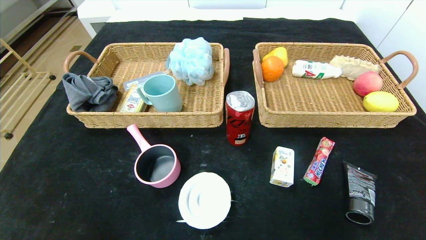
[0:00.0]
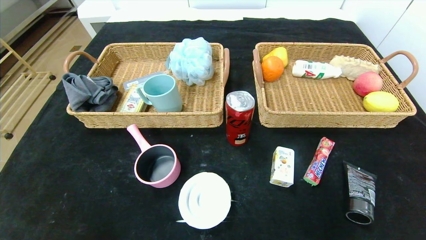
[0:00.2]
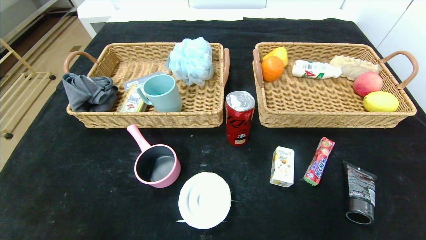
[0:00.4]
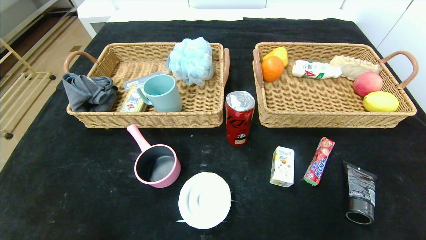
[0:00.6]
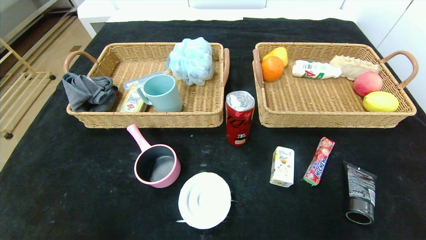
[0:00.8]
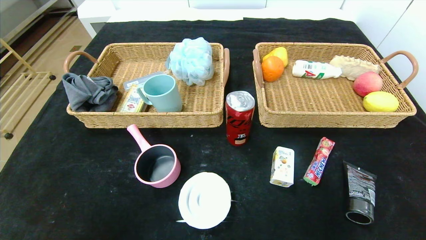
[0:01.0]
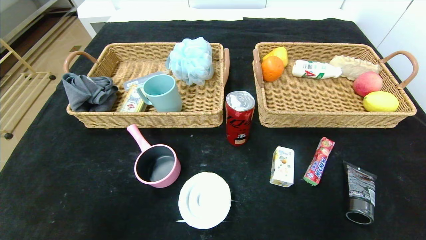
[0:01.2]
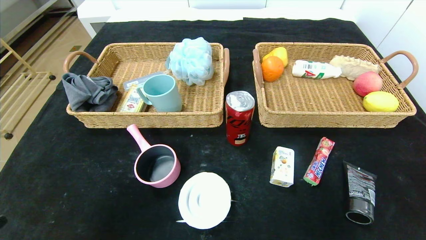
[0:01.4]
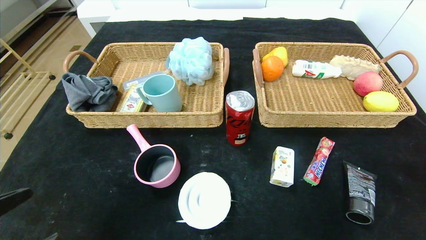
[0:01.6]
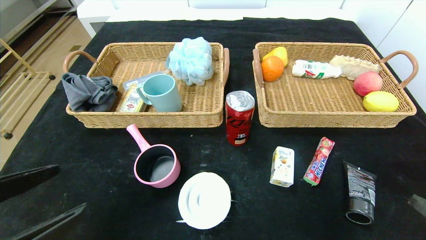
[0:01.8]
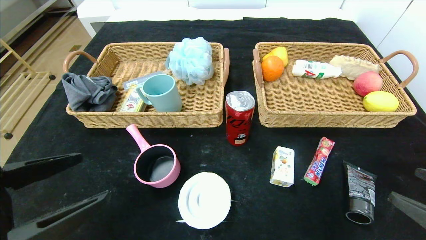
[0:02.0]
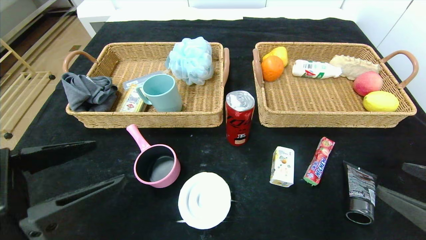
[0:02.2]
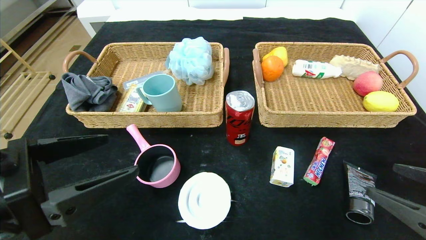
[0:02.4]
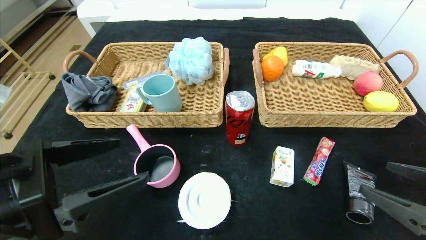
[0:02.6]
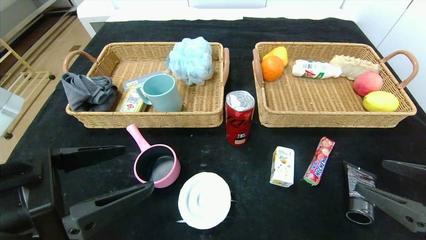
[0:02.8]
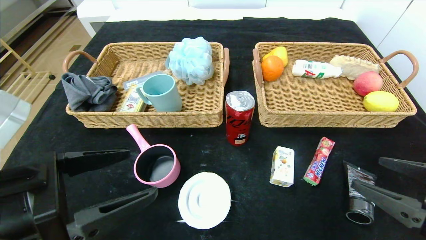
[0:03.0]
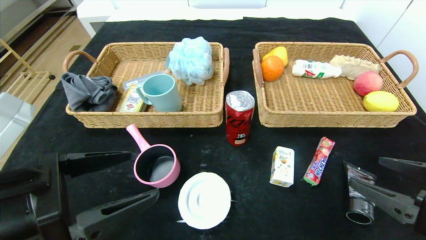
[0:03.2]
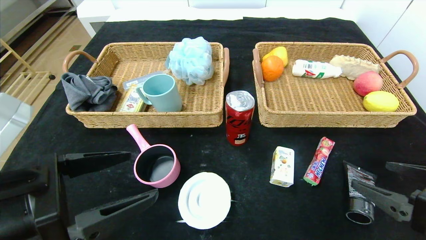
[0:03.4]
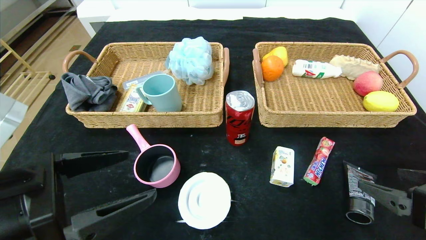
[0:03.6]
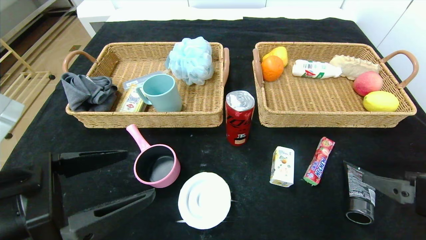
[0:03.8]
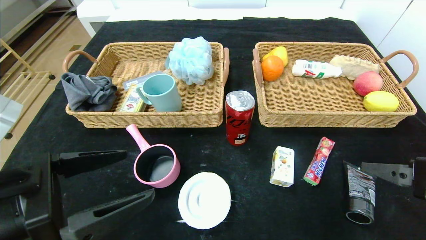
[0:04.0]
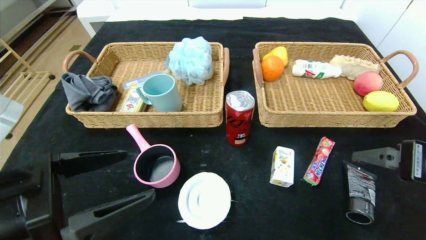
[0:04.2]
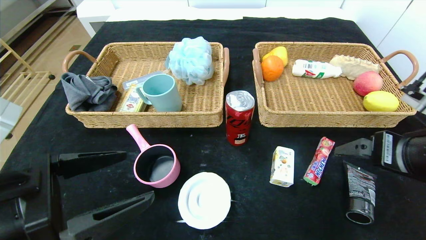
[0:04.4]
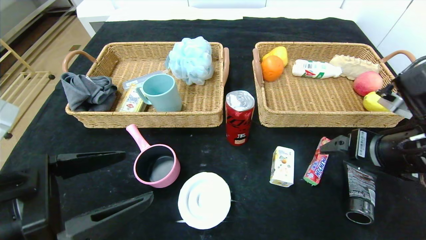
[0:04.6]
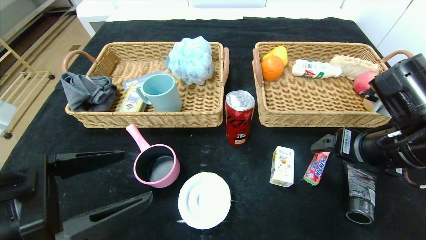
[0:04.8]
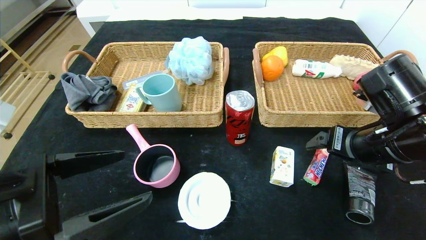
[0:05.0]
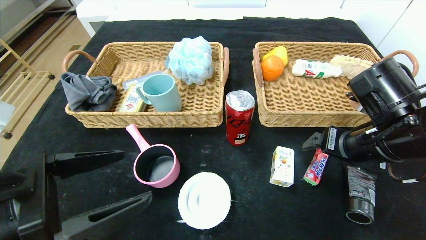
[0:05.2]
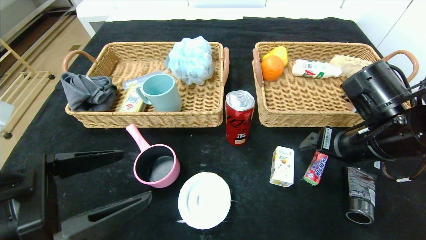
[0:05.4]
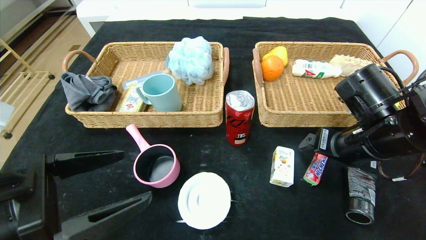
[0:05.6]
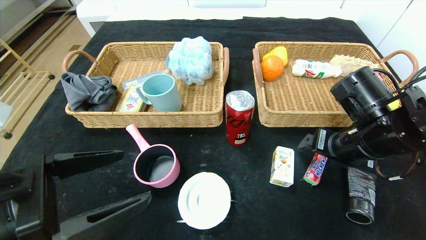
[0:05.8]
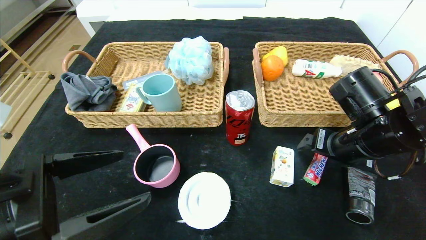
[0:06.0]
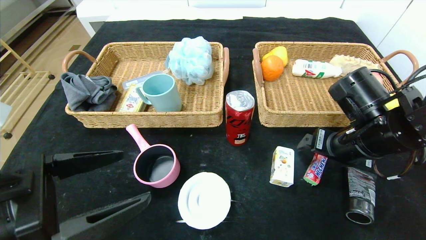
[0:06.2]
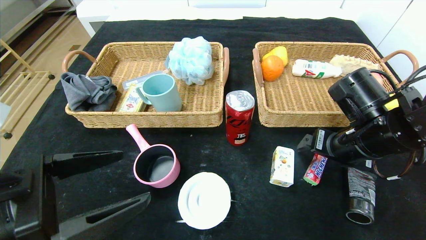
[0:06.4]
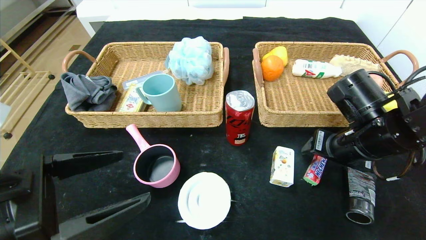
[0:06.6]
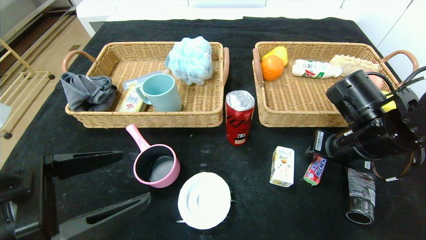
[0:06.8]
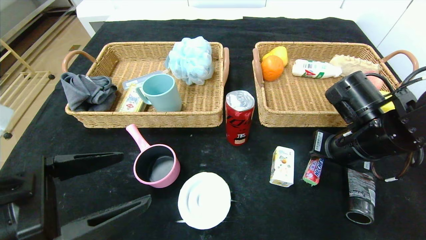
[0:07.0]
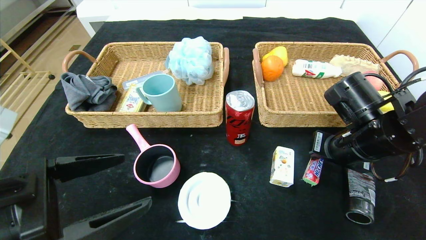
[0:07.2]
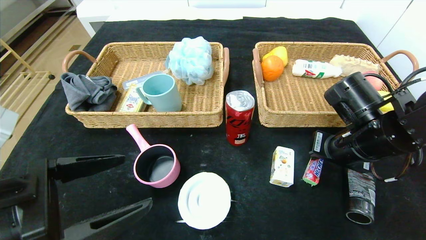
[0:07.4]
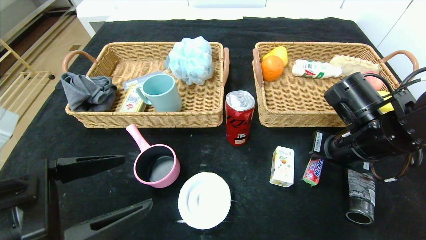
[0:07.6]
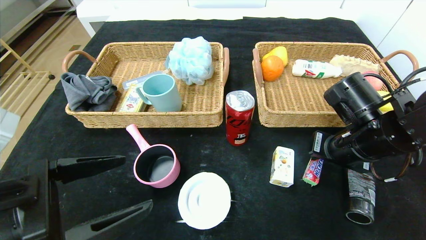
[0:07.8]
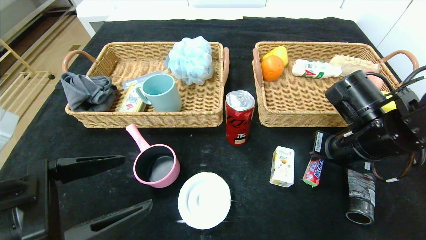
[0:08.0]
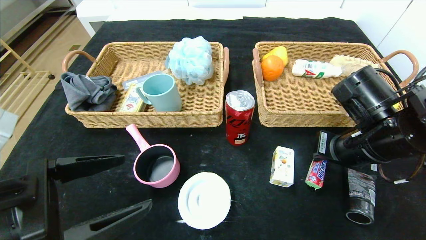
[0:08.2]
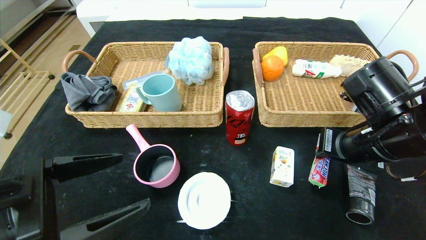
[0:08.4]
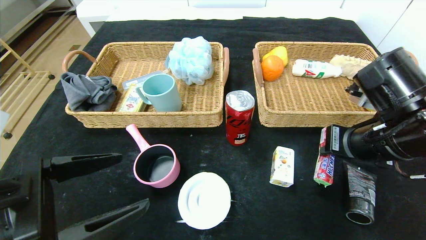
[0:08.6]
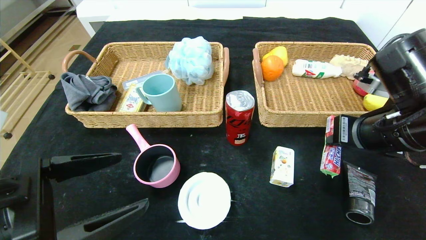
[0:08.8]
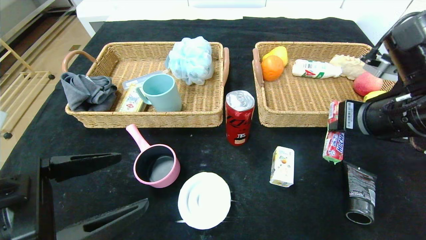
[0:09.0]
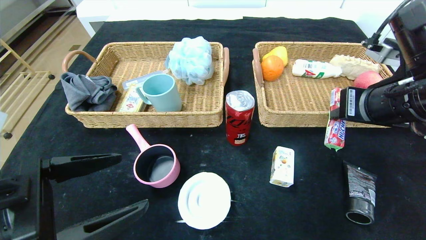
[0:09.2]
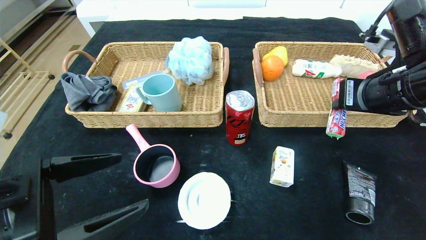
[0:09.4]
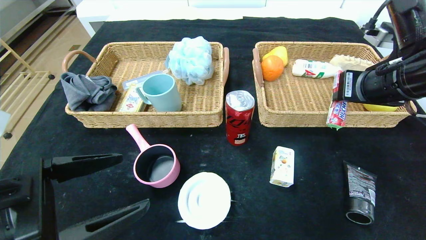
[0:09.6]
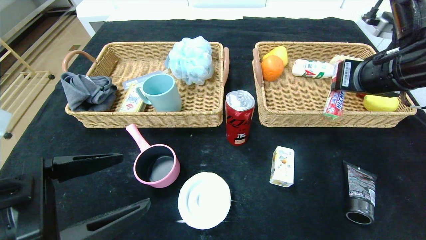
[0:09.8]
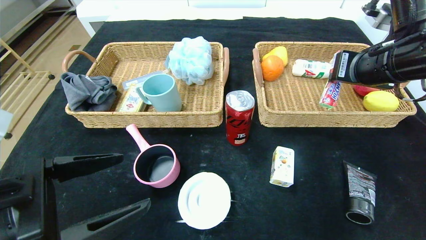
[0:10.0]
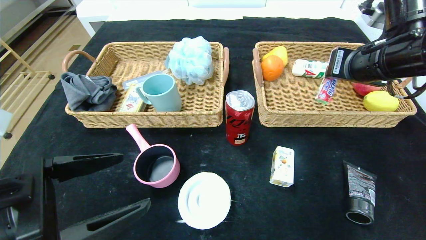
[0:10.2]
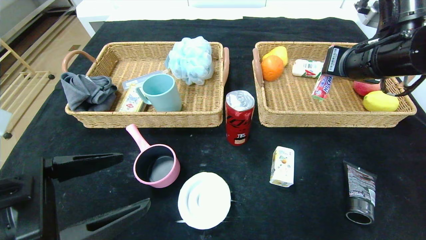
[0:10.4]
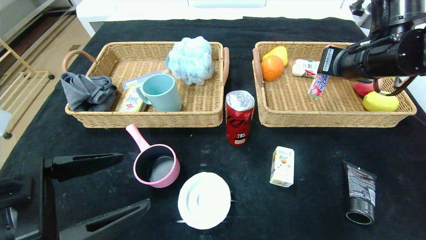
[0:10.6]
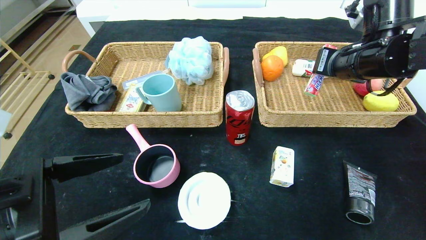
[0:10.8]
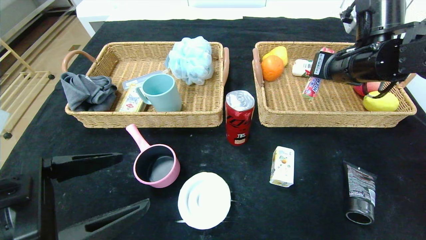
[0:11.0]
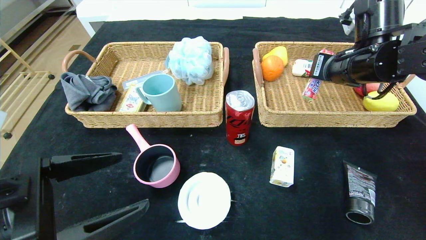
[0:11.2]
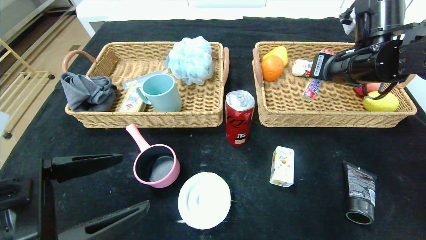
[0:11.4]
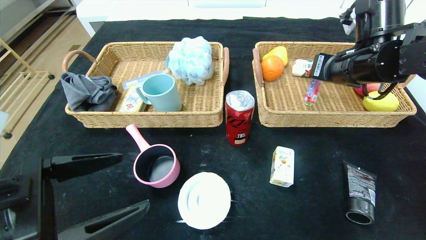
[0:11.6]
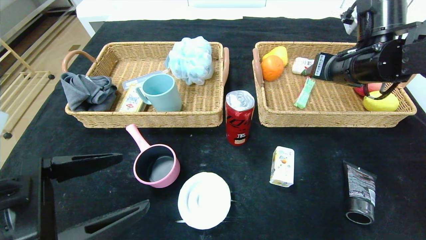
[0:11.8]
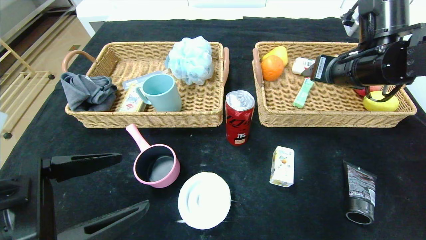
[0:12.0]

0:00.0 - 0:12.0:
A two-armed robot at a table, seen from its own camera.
Step, 0:00.0 - 0:11.8: Grasp the fruit fudge and put it in the right basket.
0:00.0 - 0:01.6: The left gripper travels upward and forward by about 10 cm.
0:01.6 - 0:03.0: The right gripper goes approximately 10 cm forward, while the left gripper shifts about 10 cm forward and to the right.
0:03.0 - 0:04.4: The right gripper goes roughly 5 cm forward.
0:04.4 - 0:06.0: The right gripper moves forward, some 10 cm.
0:06.0 - 0:07.6: The right gripper closes.
0:07.6 - 0:09.0: The right gripper travels upward by about 5 cm.
0:09.0 - 0:10.4: The right gripper goes about 10 cm forward.
0:10.4 - 0:12.0: The right gripper opens.

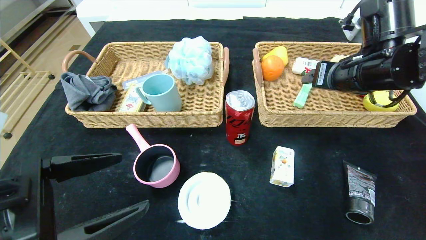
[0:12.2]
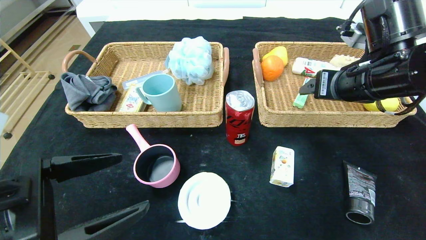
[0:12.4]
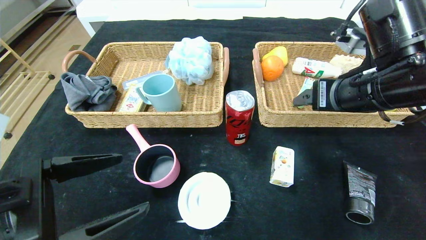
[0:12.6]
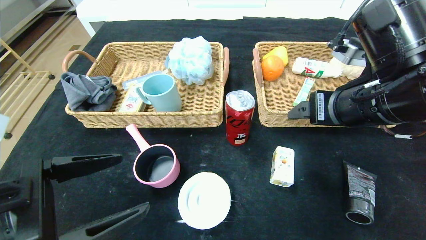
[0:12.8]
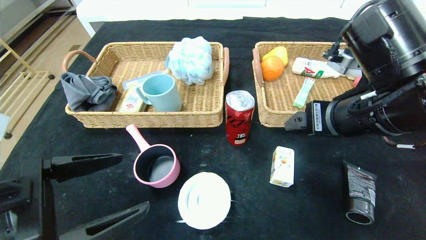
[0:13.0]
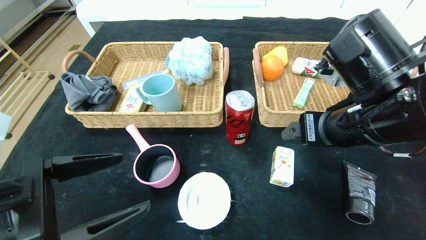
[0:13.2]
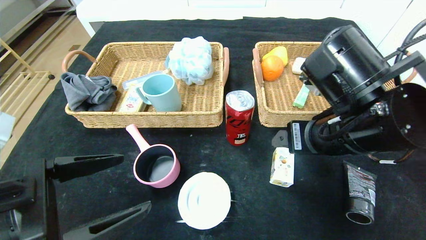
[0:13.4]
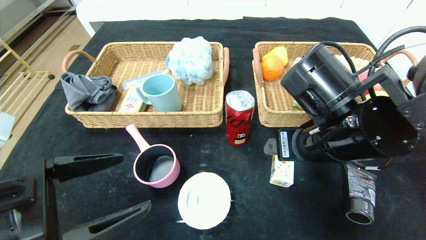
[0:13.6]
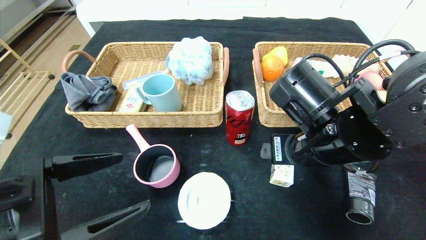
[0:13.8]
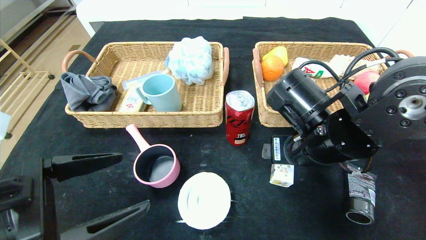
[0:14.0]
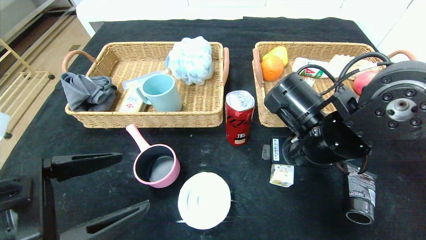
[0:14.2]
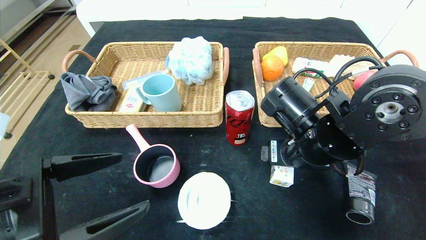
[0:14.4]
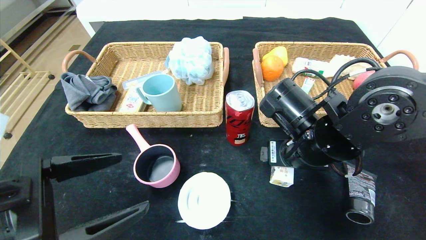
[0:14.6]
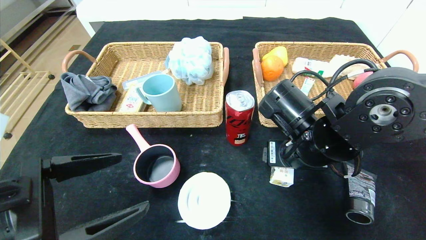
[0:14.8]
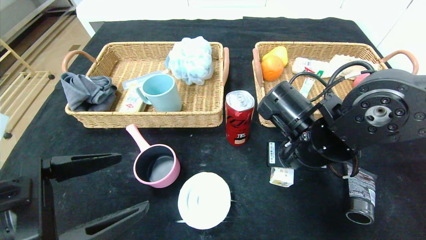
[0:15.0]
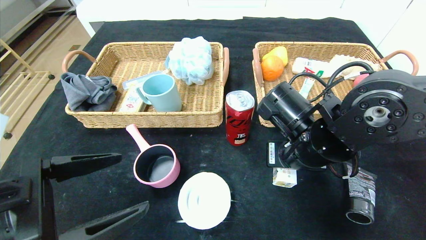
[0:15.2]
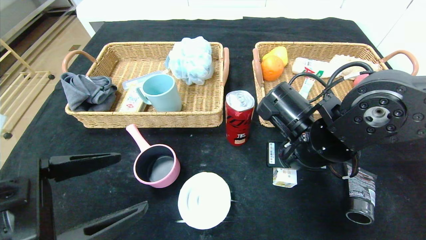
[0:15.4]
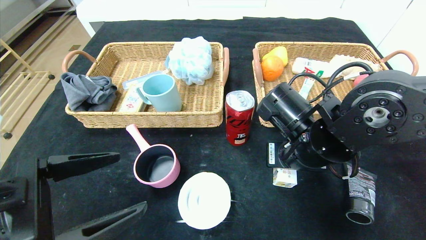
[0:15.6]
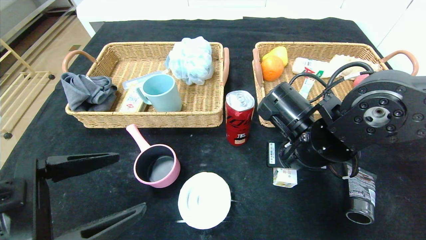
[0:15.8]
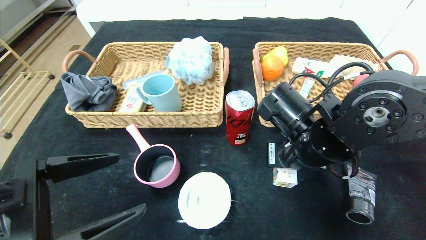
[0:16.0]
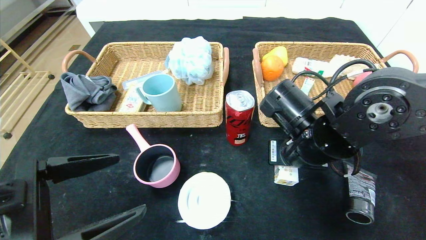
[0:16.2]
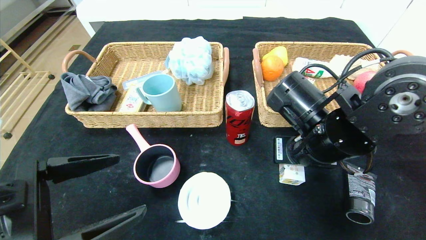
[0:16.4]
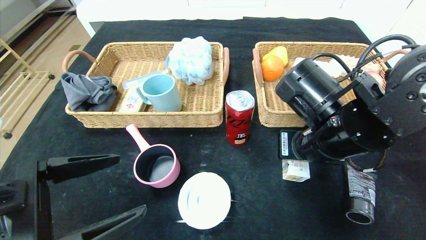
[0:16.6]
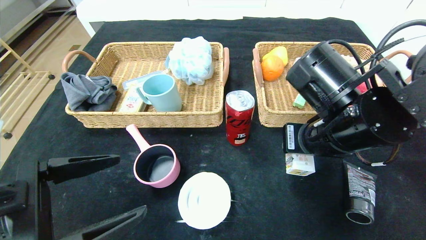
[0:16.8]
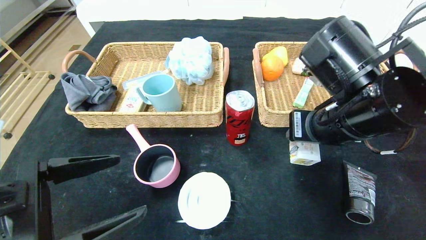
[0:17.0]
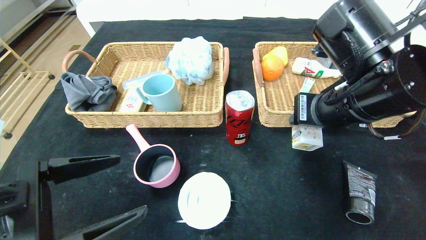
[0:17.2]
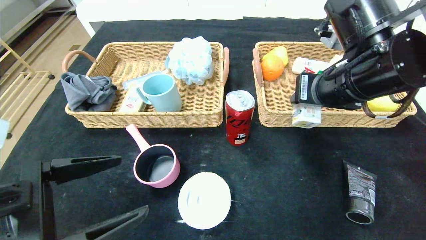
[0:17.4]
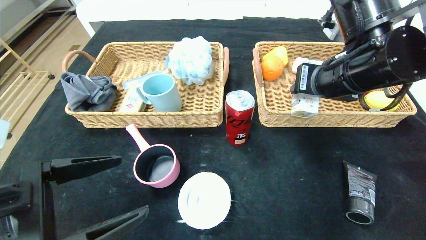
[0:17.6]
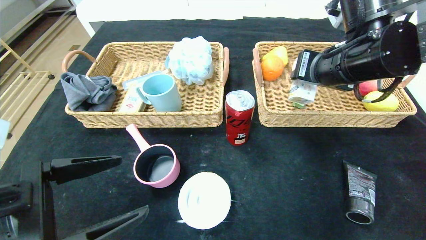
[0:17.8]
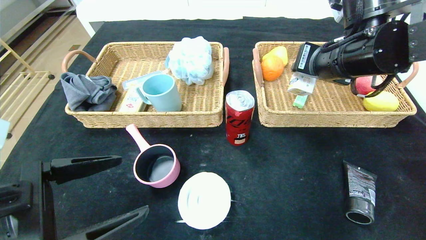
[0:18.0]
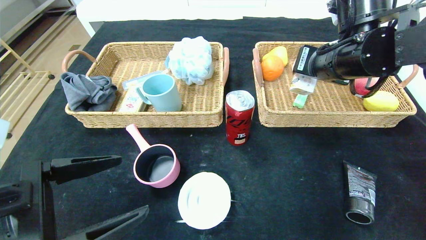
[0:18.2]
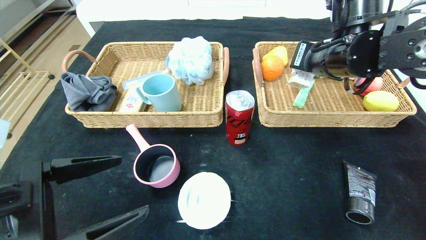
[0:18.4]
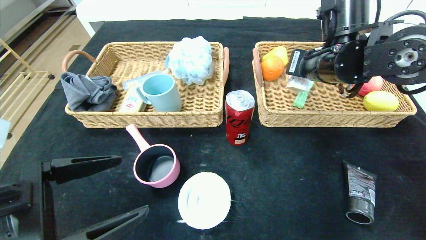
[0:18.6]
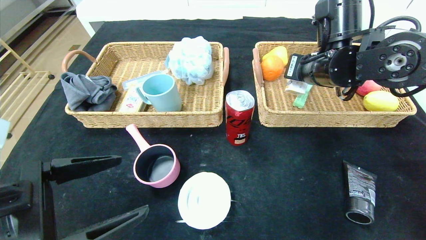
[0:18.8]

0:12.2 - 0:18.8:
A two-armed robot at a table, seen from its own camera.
0:12.2 - 0:13.8: The right gripper travels to the left, backward and downward by roughly 15 cm.
0:13.8 - 0:15.4: The right gripper closes its fingers.
0:15.4 - 0:17.2: The right gripper travels upward by approximately 10 cm.
0:17.2 - 0:18.8: The right gripper goes roughly 10 cm forward.
